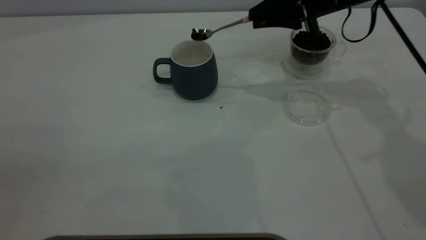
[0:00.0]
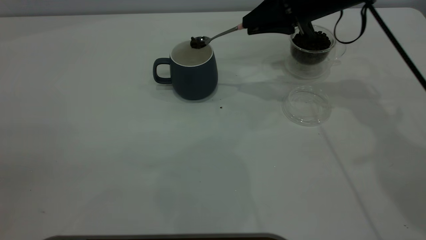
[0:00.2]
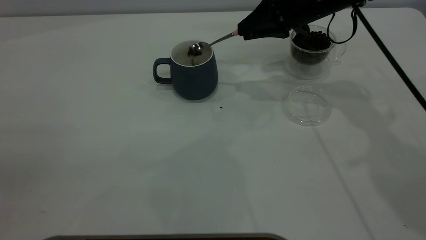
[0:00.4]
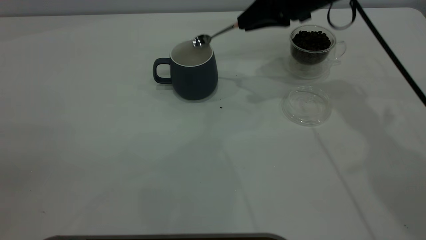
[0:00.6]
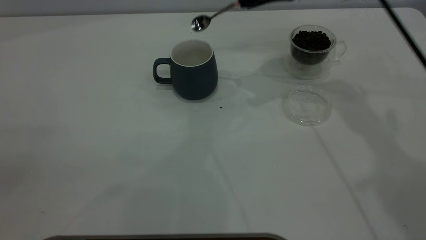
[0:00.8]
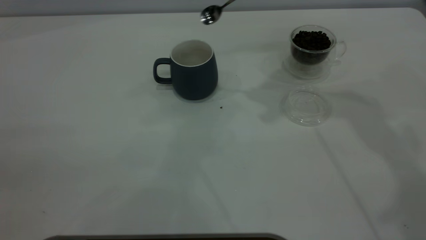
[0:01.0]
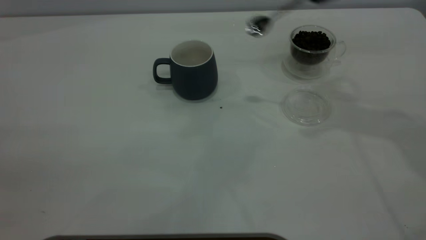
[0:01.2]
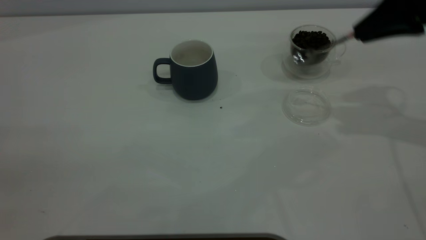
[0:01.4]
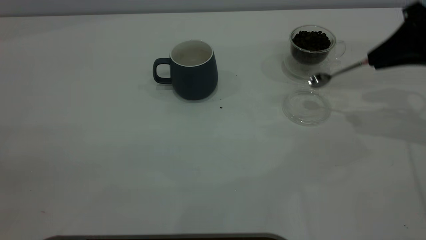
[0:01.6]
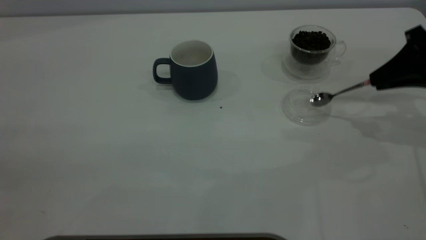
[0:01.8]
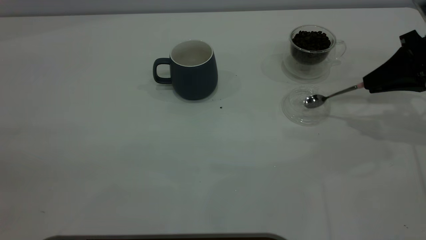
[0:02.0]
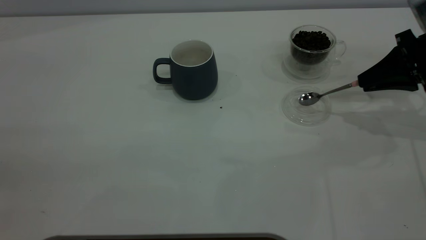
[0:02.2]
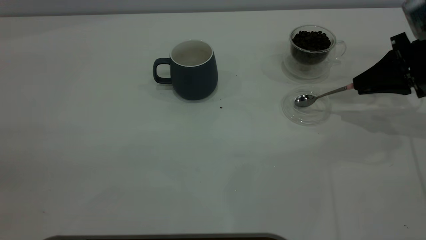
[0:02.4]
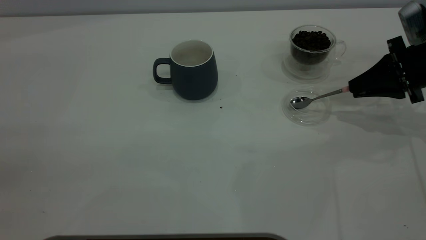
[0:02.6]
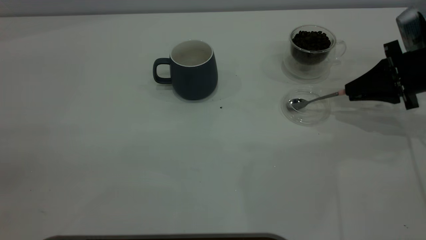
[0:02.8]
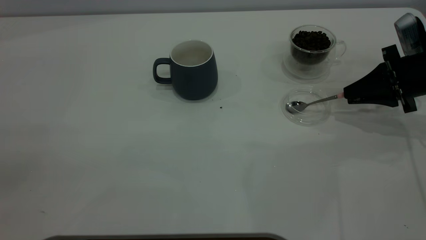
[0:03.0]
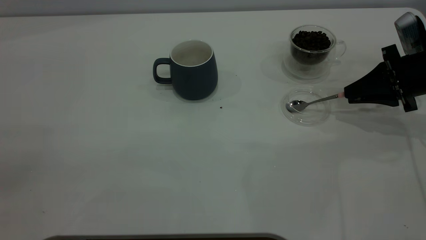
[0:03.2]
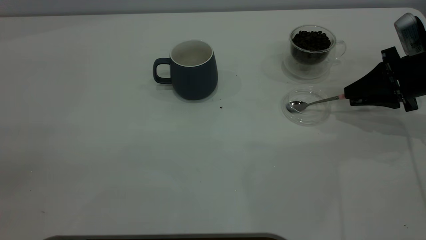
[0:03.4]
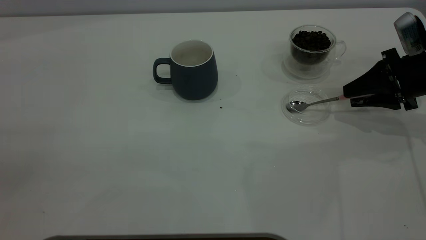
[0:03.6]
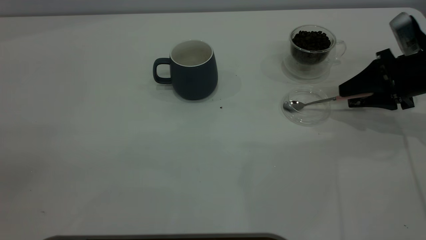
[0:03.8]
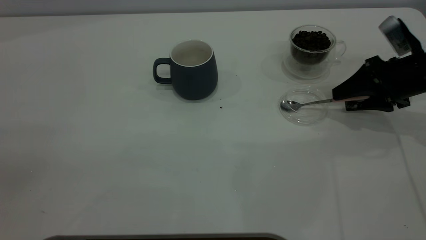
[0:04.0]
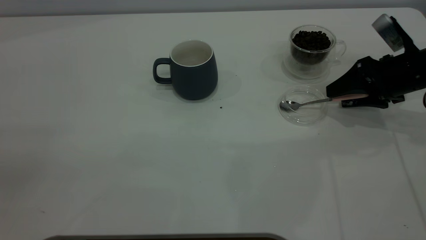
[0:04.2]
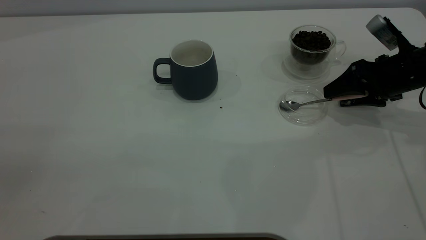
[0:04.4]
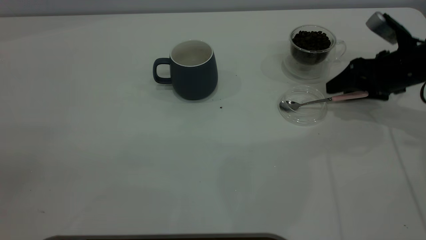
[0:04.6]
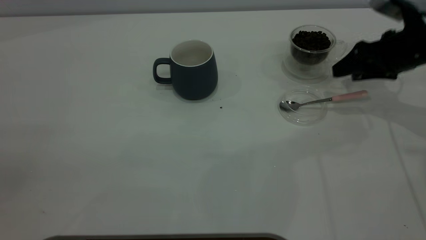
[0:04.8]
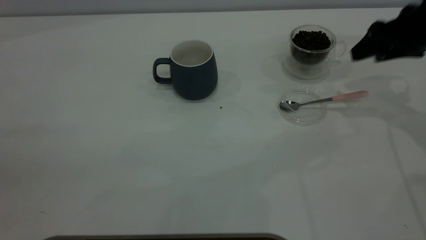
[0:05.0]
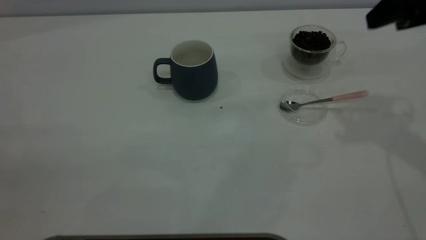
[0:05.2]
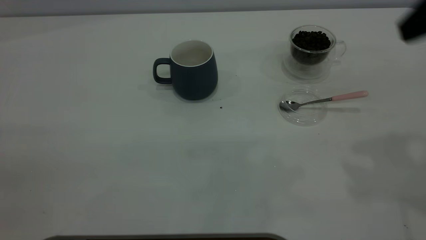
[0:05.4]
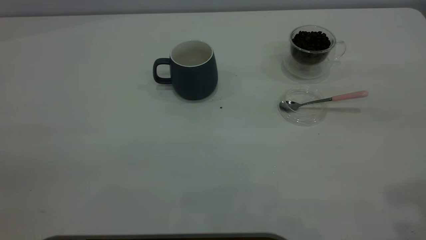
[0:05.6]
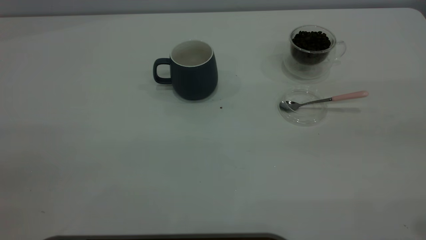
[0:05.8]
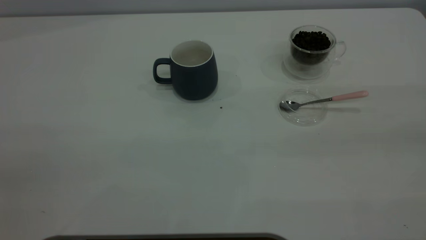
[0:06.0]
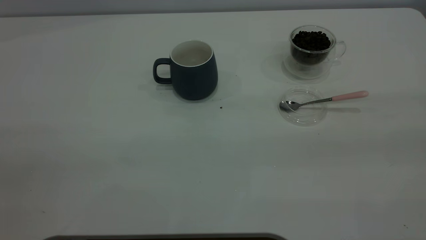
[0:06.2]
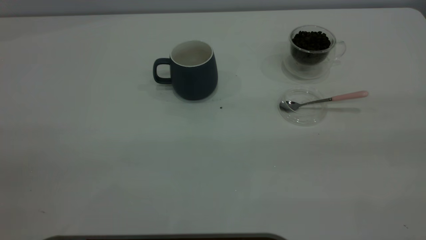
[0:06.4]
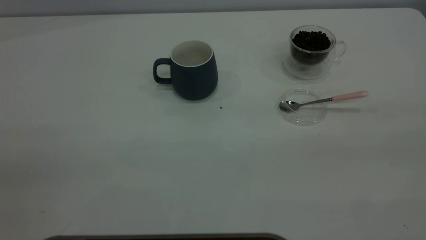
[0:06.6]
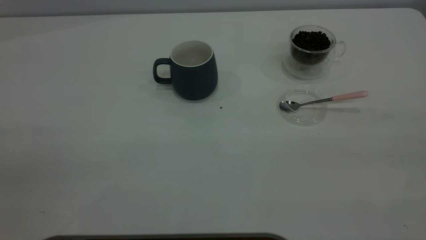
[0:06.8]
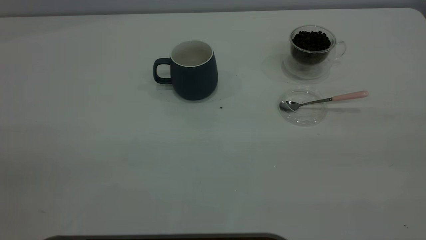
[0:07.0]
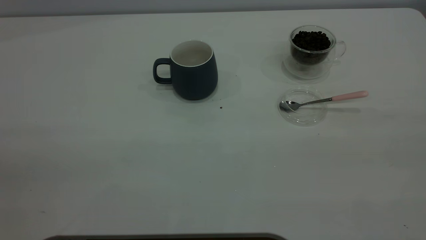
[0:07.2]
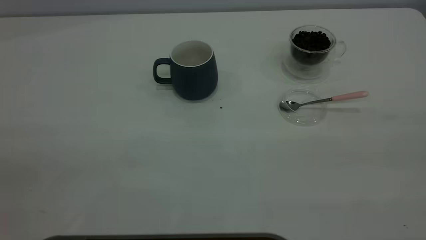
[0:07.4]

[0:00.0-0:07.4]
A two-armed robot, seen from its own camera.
Task of the whole recording: the left gripper place the grey cup in the center of the table, the right gripper take the pink spoon from the cup lid and scoop out the coffee beans from the coffee cup and put them into the grey cup, the right gripper put the spoon back into the cup lid.
Step, 0:01.0 to 0:04.8: Place the spoon back in its original place.
0:00.0 to 0:01.4: The right gripper travels to the right and backward by roughly 15 cm.
0:01.4 to 0:03.0: The right gripper goes about 15 cm downward.
0:03.0 to 0:04.4: The right gripper opens its fingers.
0:04.4 to 0:06.0: The right gripper heads backward and upward, covering some 40 cm.
